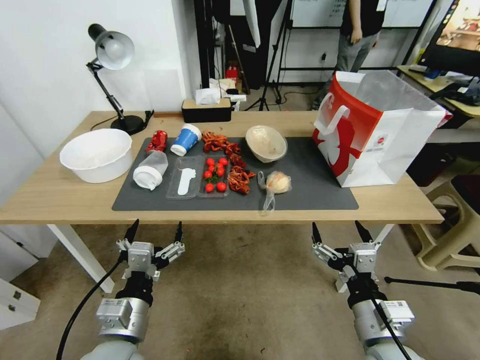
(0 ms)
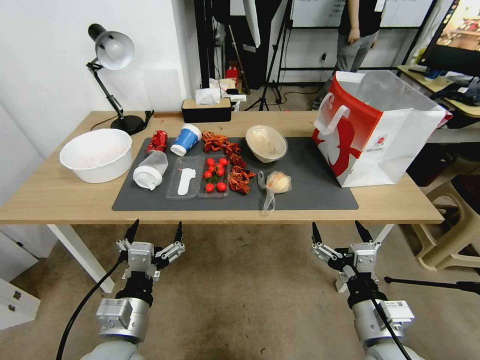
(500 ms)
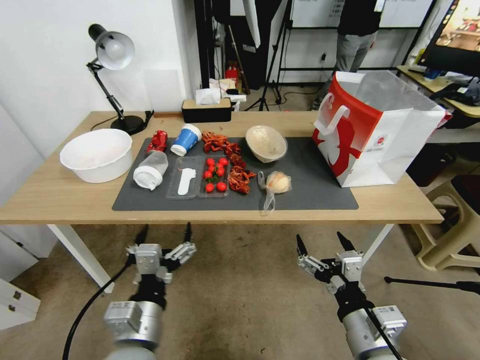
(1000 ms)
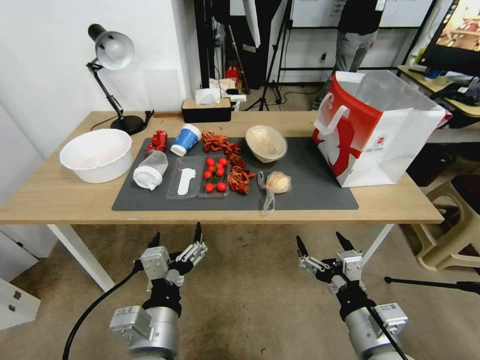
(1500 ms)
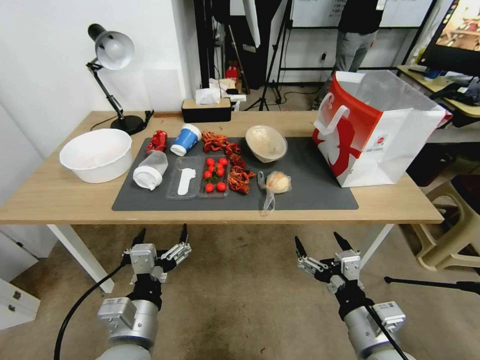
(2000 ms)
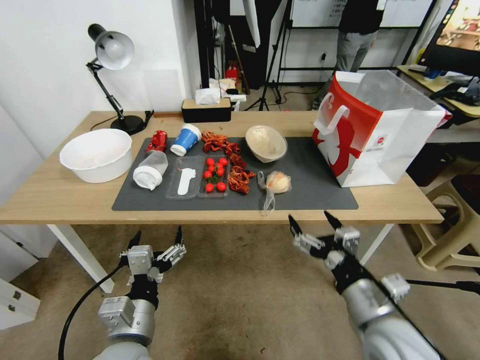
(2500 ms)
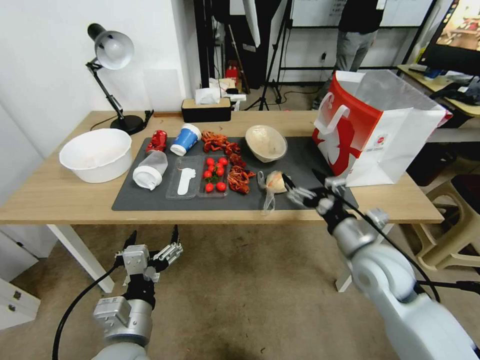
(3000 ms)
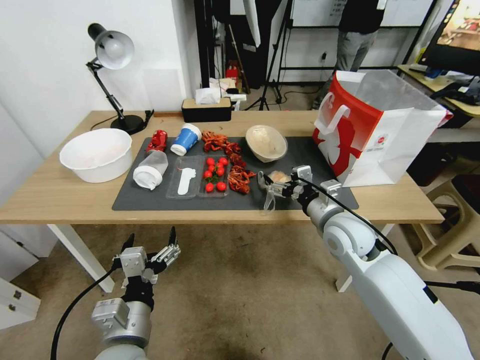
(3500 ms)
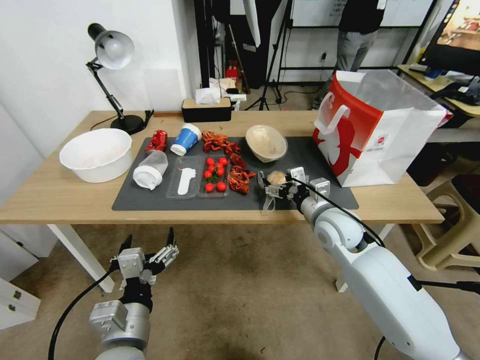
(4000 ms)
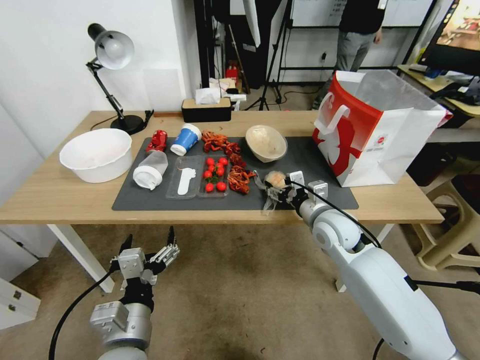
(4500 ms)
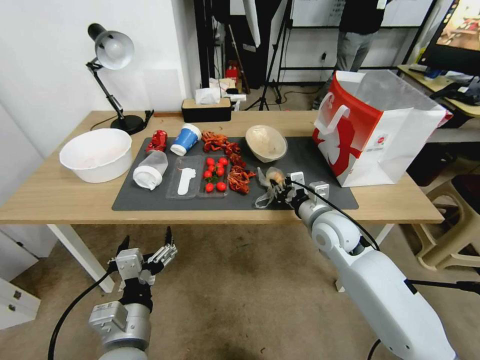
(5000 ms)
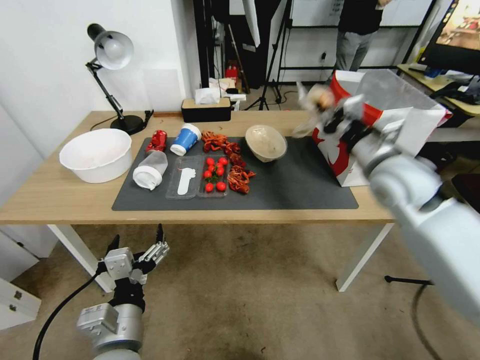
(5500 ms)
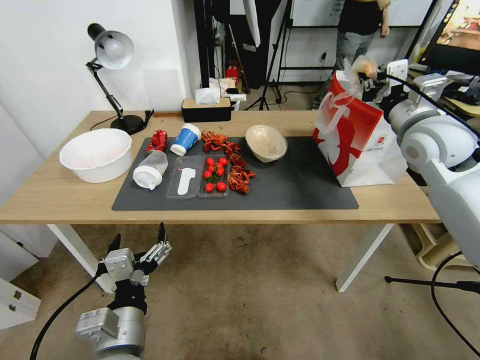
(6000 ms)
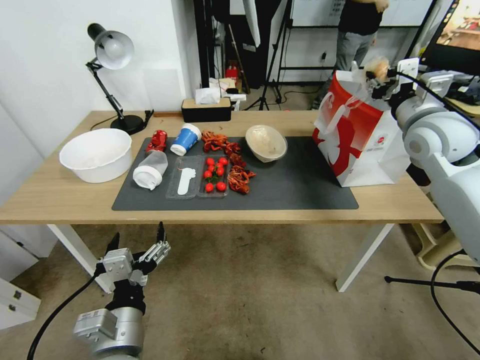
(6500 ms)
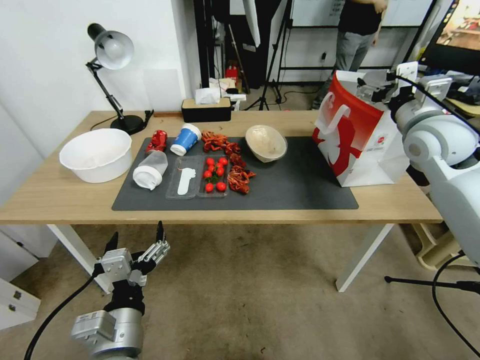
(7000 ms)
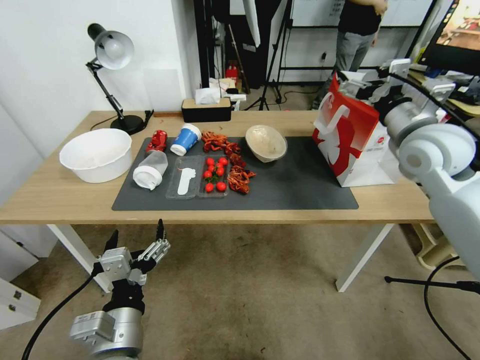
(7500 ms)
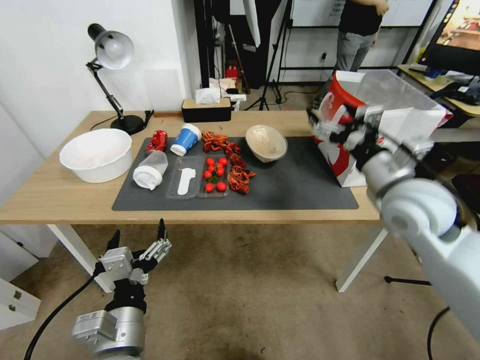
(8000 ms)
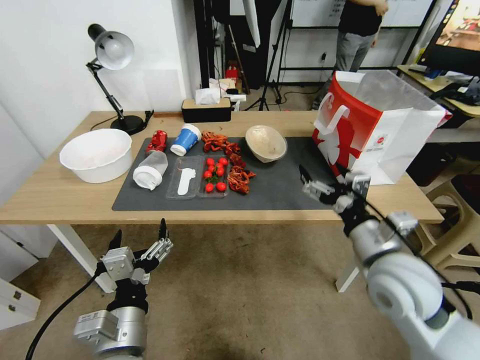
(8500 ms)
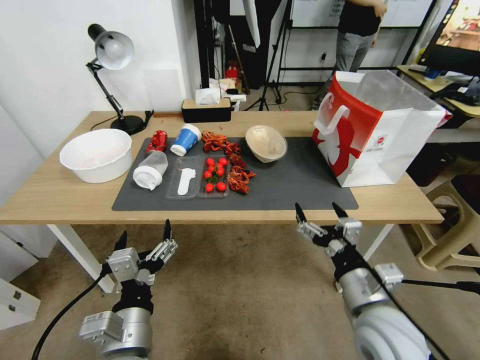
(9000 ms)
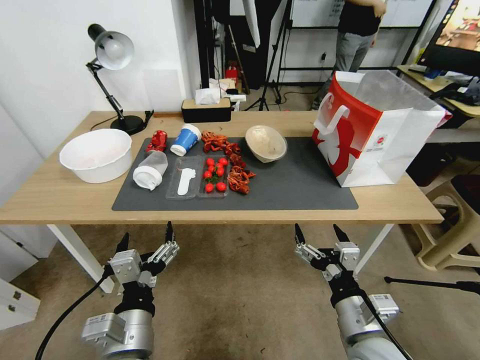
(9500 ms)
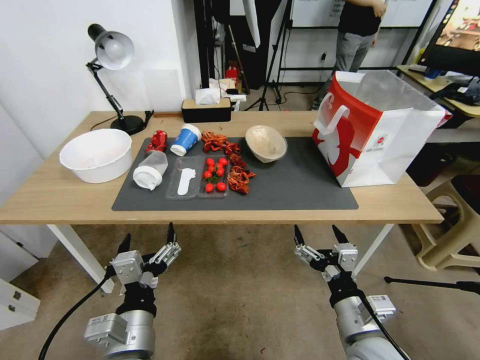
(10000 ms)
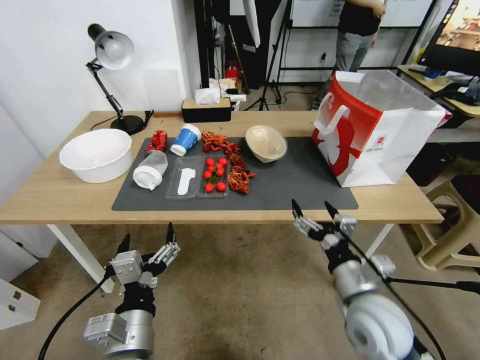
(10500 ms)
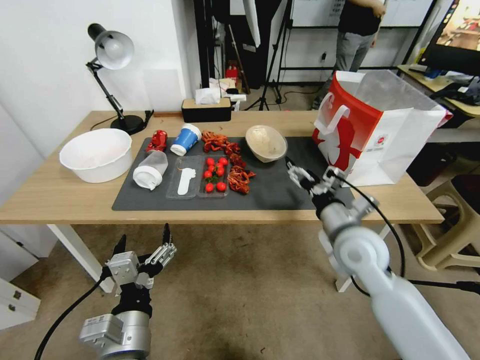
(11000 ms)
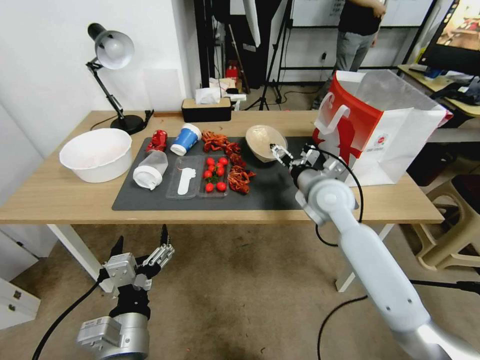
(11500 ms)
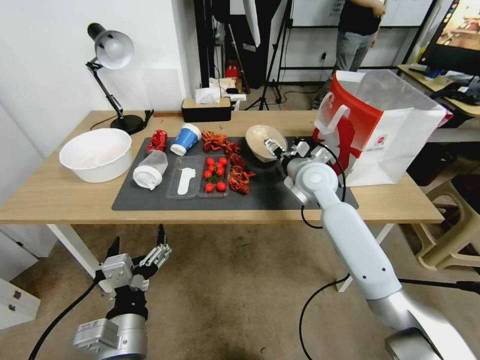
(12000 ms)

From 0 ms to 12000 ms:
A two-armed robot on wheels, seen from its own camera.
From 2000 ms to 4000 ms: The right gripper is displaced forward by some 25 cm.
From 4000 ms to 6000 ms: The right gripper is displaced upward and to the right by approximately 20 cm, and closes its fingers.
From 6000 ms to 8000 ms: The right gripper opens up.
From 8000 ms to 10000 ms: The right gripper moves backward and downward, approximately 35 cm.
From 10000 ms to 12000 ms: The right gripper heads forward, covering some 35 cm.

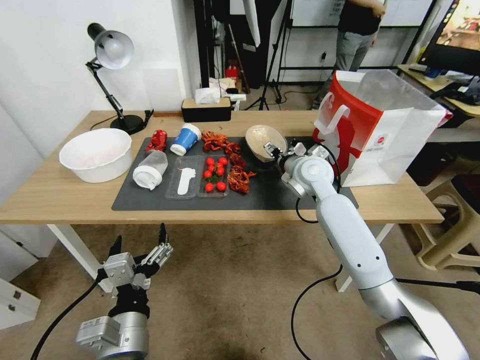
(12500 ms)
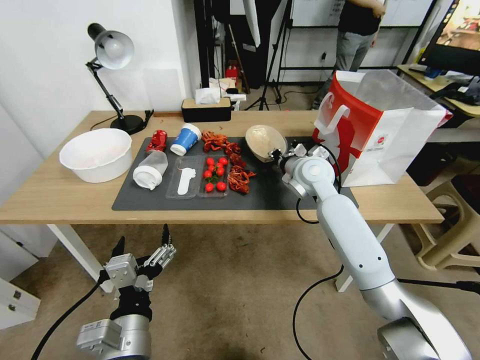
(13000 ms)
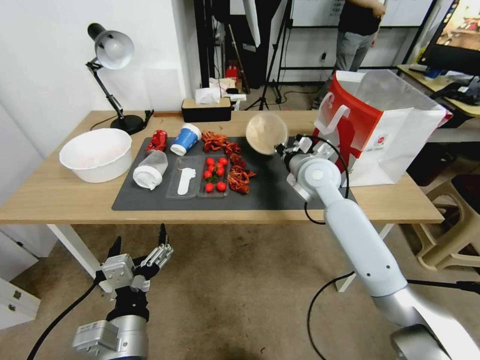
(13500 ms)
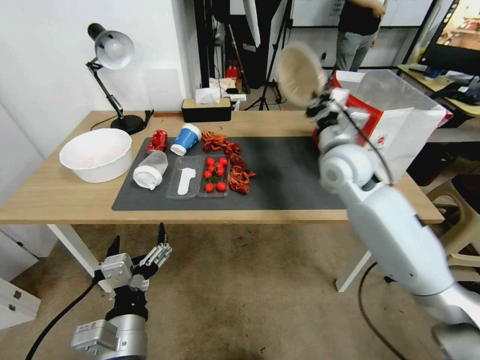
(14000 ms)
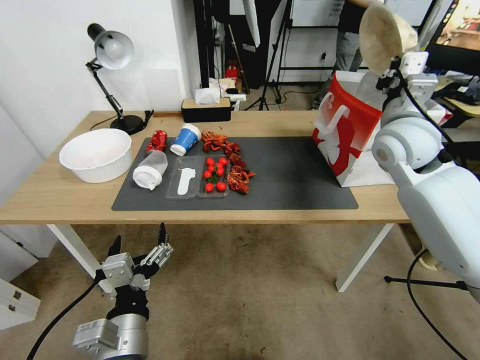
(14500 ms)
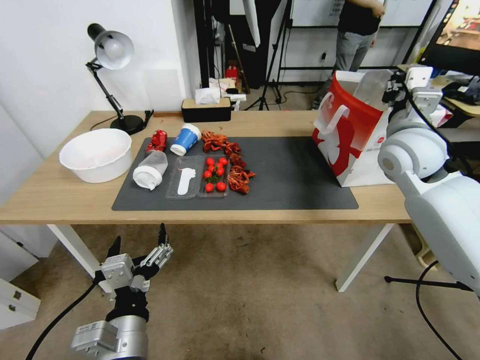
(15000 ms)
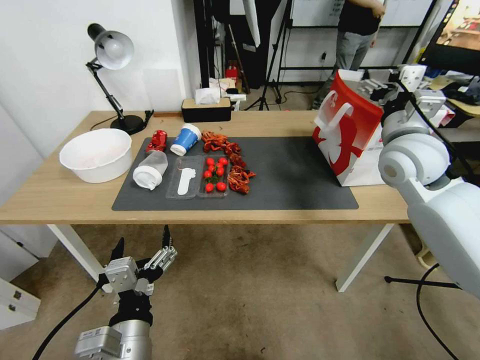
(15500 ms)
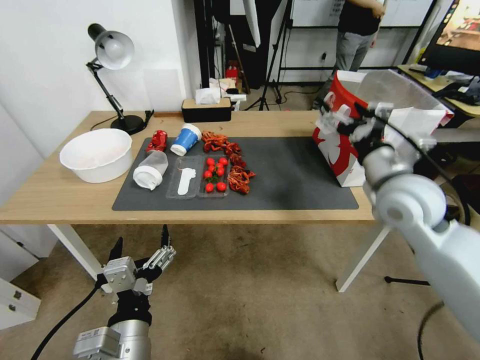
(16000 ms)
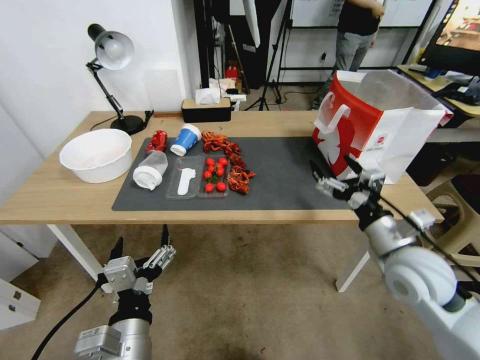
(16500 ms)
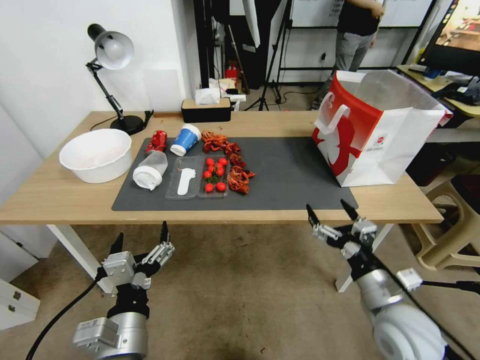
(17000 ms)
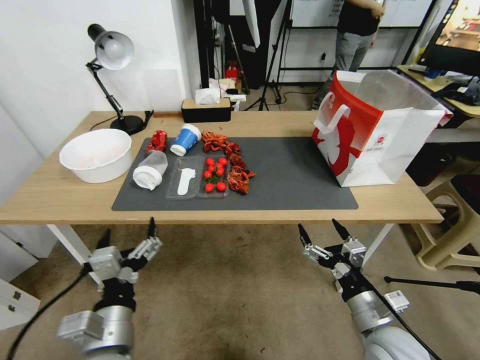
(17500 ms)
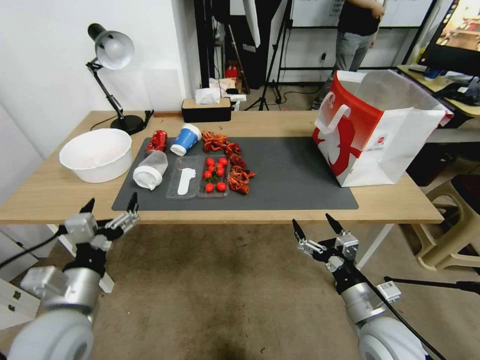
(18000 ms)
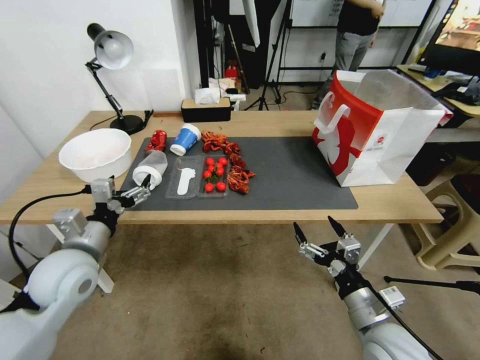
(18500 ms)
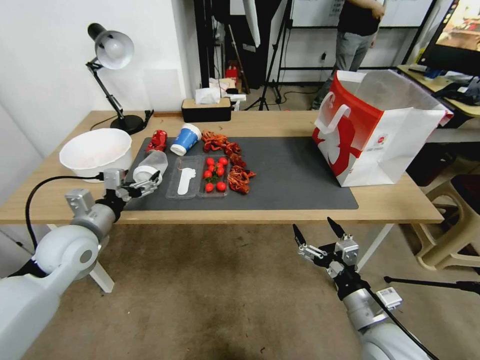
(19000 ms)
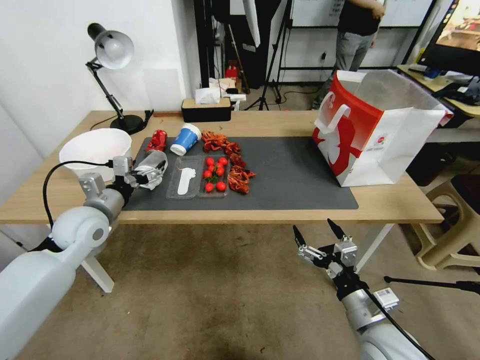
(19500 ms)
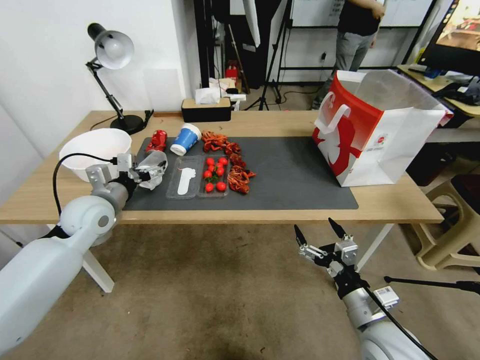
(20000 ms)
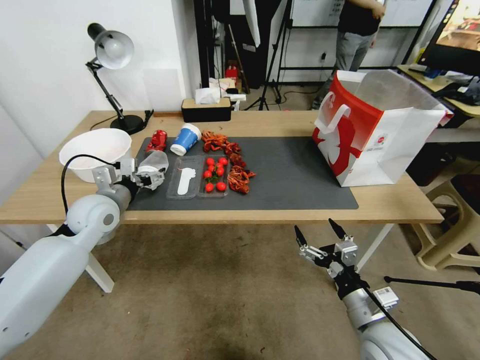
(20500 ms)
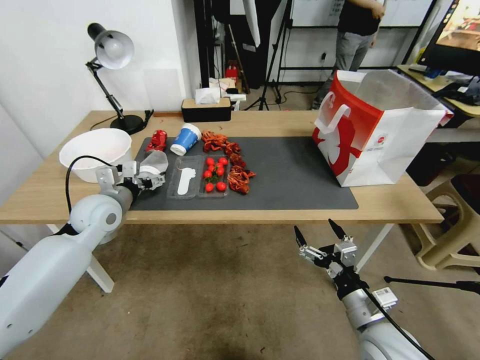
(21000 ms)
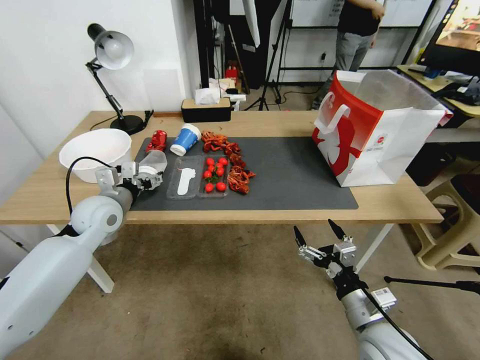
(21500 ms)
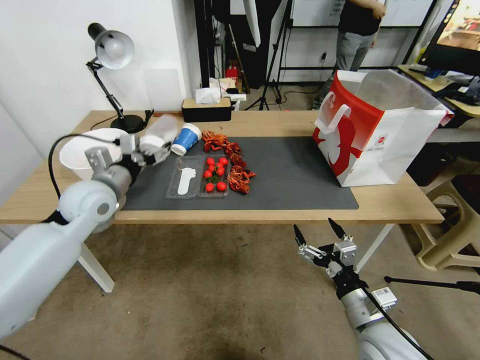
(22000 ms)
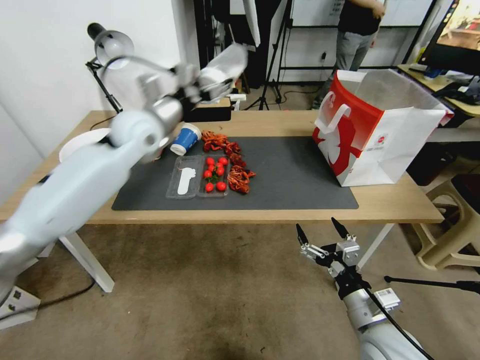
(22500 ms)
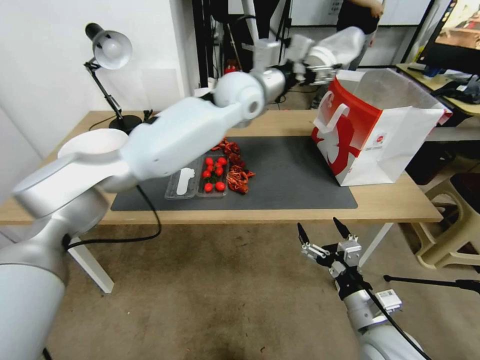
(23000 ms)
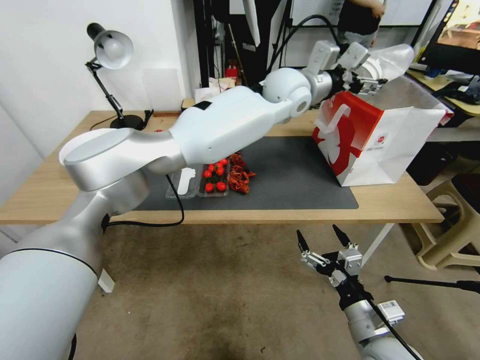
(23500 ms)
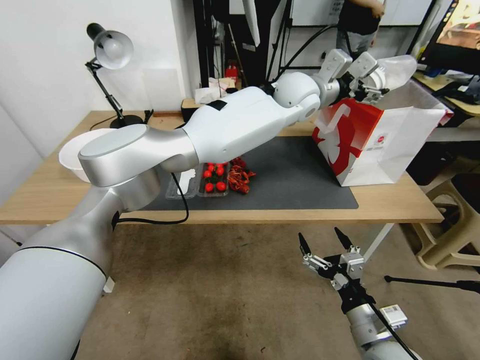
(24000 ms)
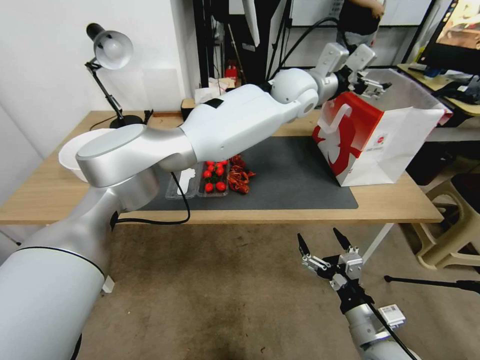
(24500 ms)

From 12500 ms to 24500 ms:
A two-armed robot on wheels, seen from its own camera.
From 12500 ms to 14500 ms: The right gripper travels upward and to the right by some 20 cm, and closes its fingers.
From 14500 ms to 16500 ms: The right gripper heads backward and downward, covering roughly 20 cm, and opens.
From 16500 ms to 18500 ms: The right gripper moves downward and backward, roughly 15 cm. The left gripper travels to the left and forward by roughly 20 cm.
From 18500 ms to 20500 ms: The left gripper shifts about 15 cm forward.
From 20500 ms to 22500 ms: The left gripper travels upward, to the right and forward by about 20 cm.
From 22500 ms to 24500 ms: The left gripper is displaced to the right by some 30 cm.

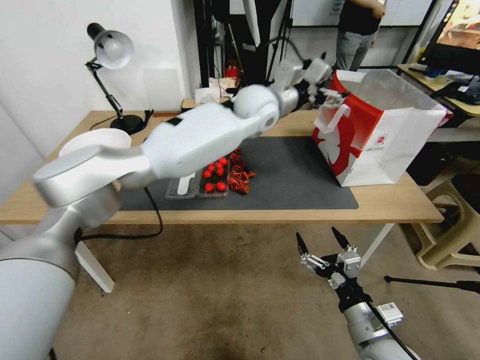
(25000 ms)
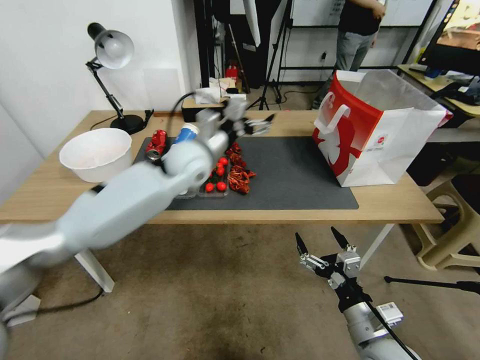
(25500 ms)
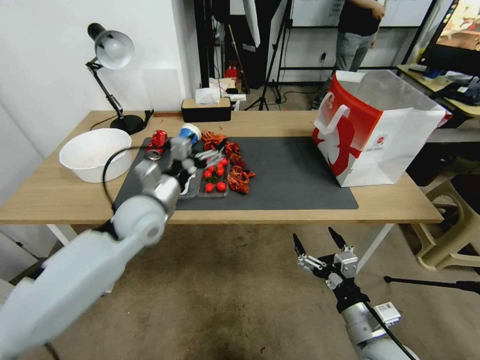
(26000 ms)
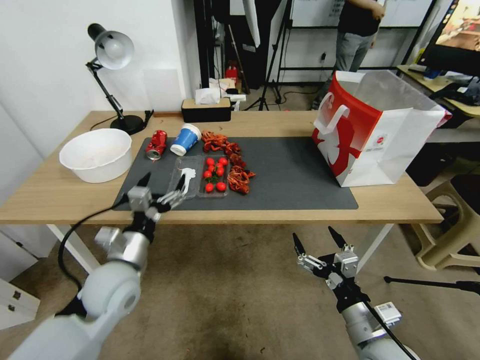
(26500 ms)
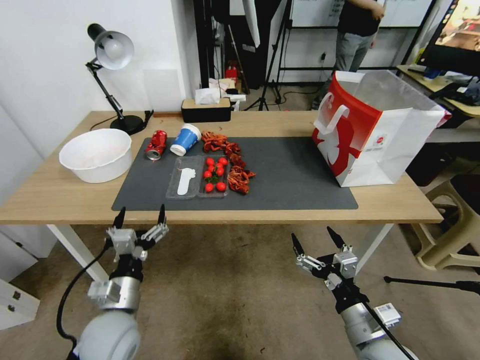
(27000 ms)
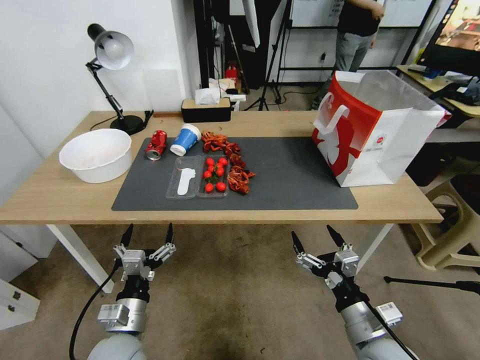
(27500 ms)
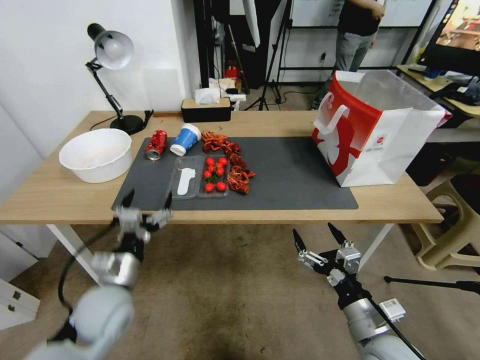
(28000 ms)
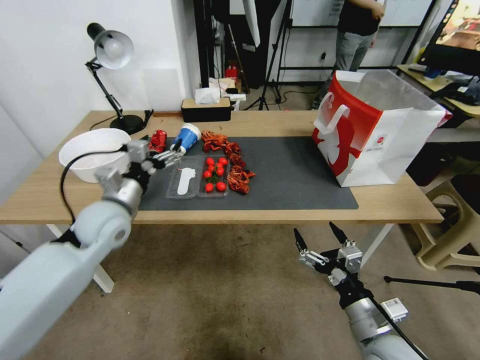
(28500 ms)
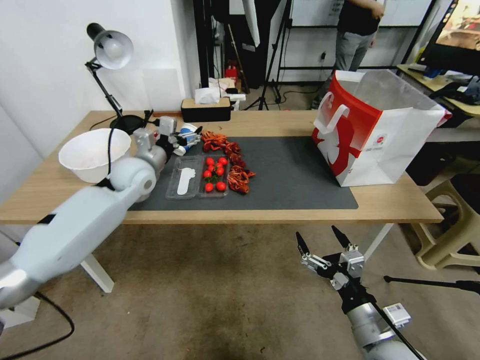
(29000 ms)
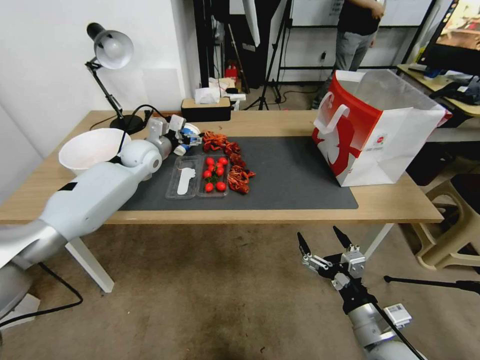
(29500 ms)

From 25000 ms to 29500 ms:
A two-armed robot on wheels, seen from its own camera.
From 25000 ms to 27000 ms: The left gripper shifts roughly 60 cm backward, to the left and downward.
From 27000 ms to 29500 ms: The left gripper goes roughly 35 cm forward.
